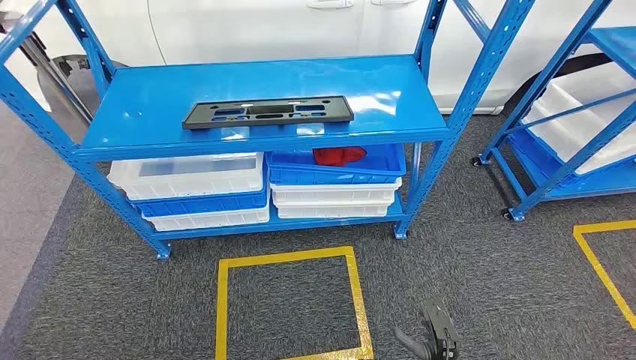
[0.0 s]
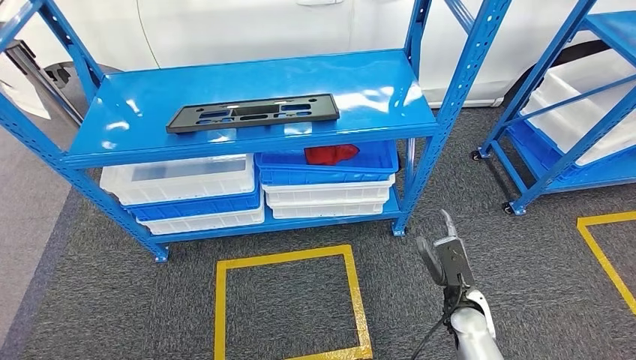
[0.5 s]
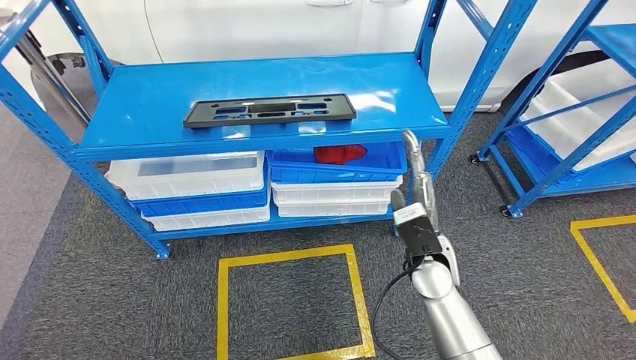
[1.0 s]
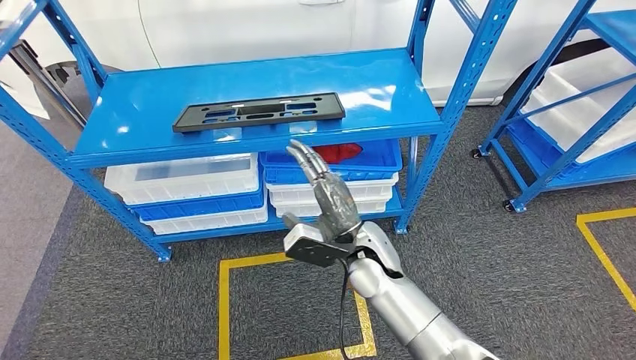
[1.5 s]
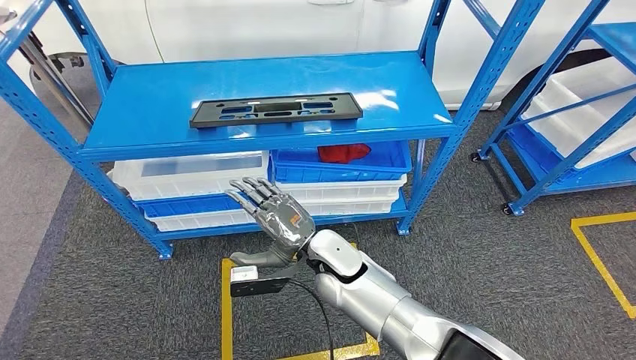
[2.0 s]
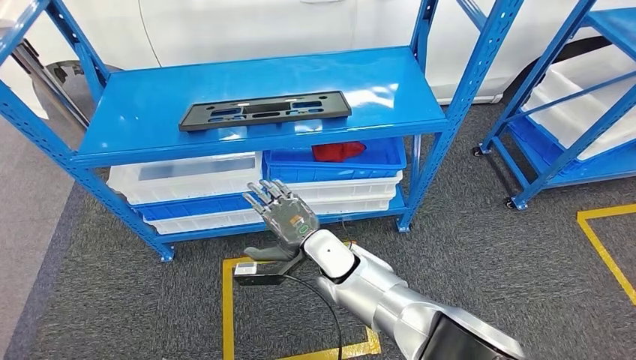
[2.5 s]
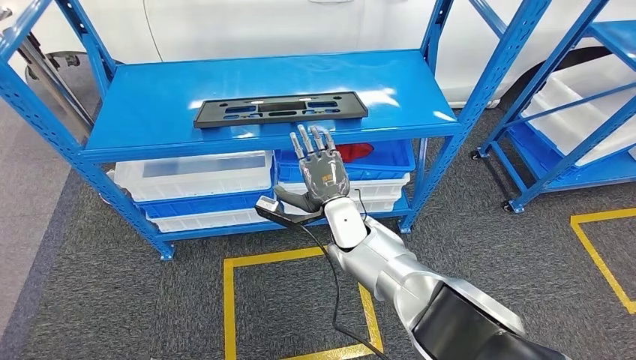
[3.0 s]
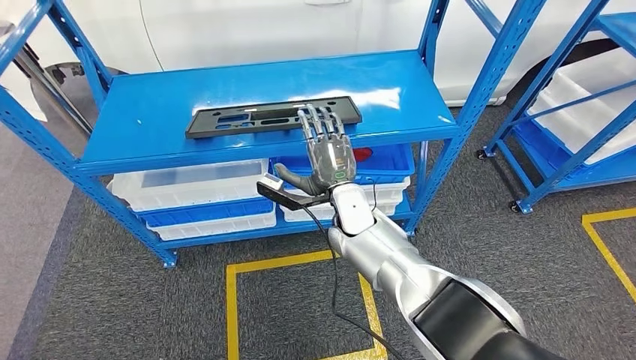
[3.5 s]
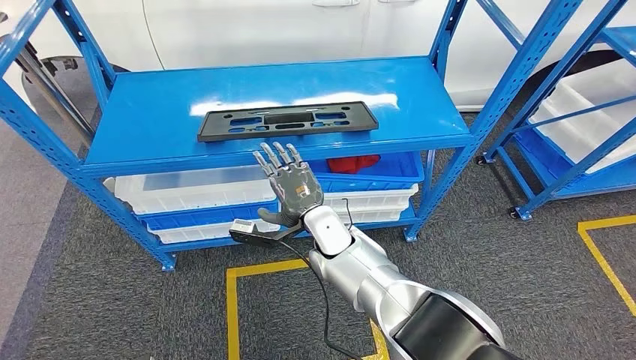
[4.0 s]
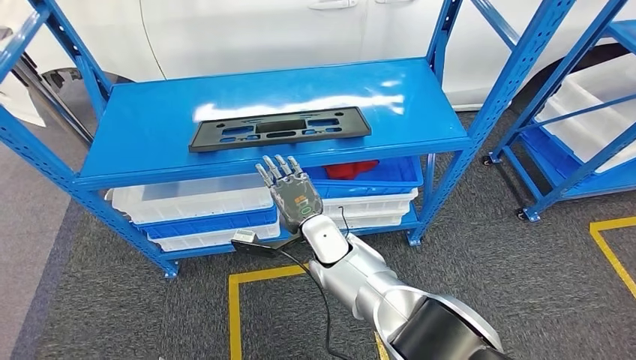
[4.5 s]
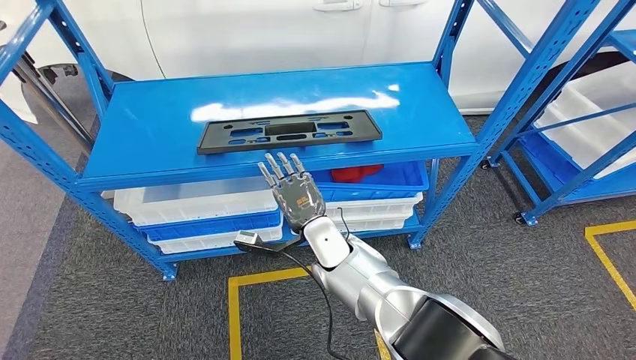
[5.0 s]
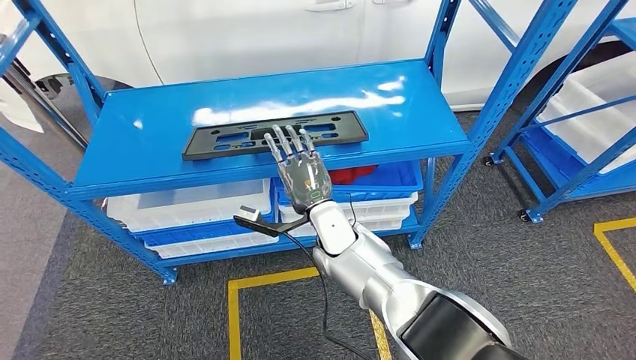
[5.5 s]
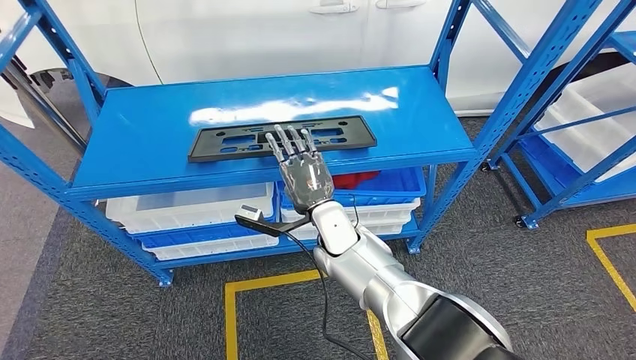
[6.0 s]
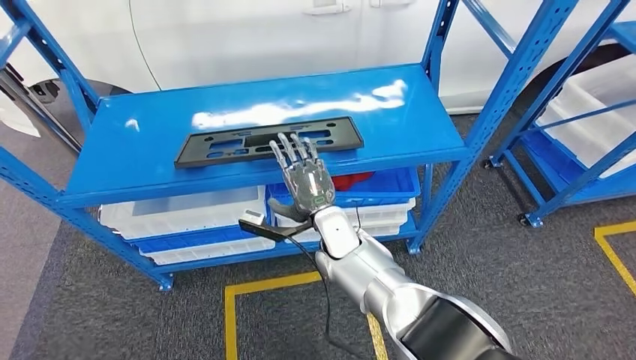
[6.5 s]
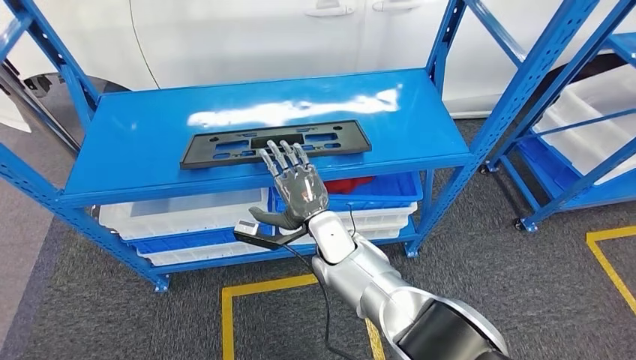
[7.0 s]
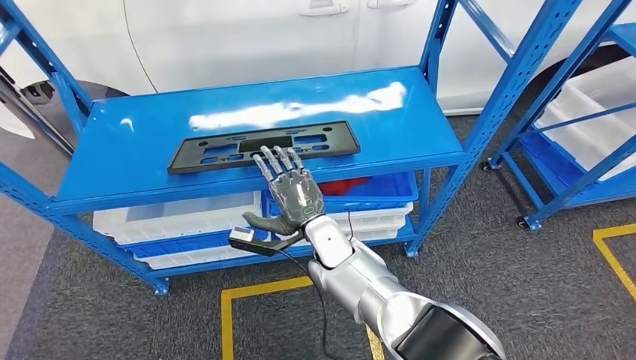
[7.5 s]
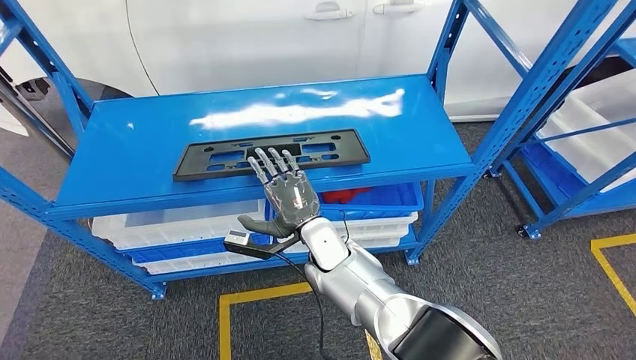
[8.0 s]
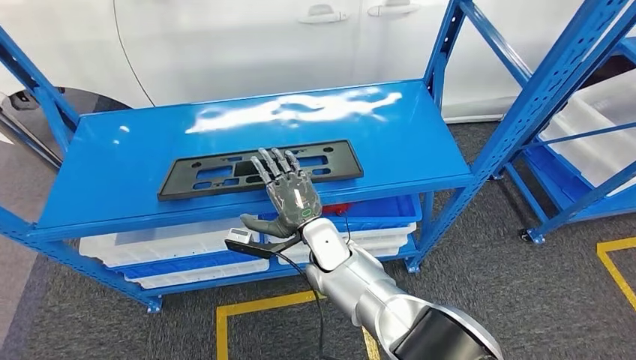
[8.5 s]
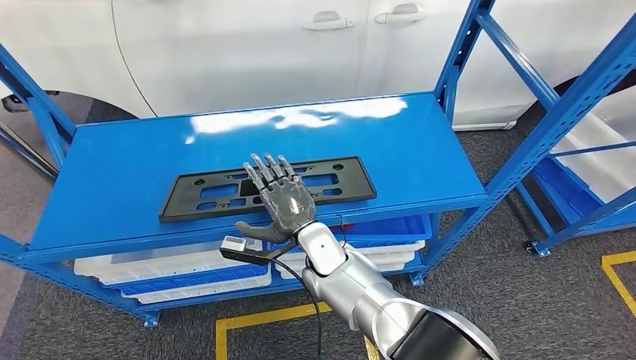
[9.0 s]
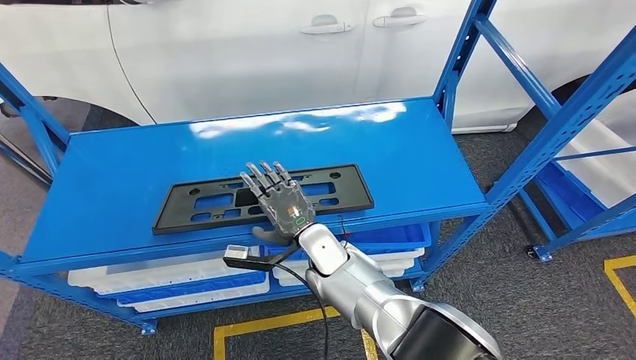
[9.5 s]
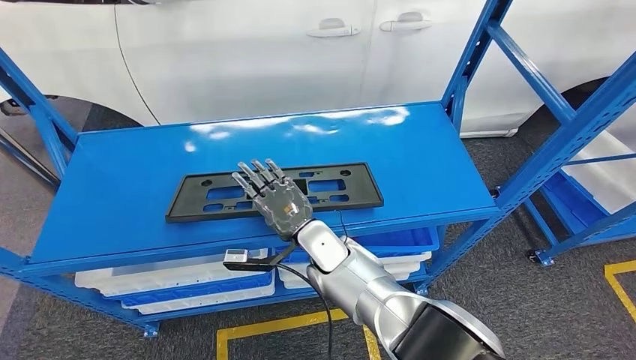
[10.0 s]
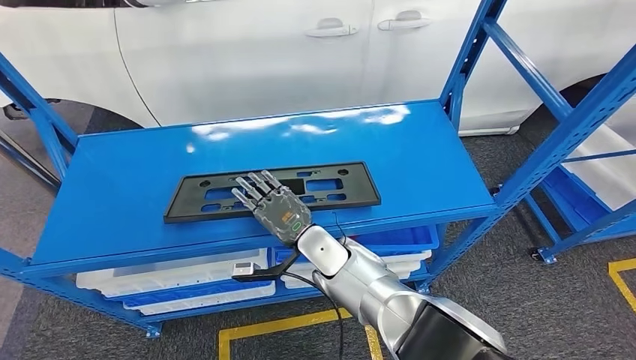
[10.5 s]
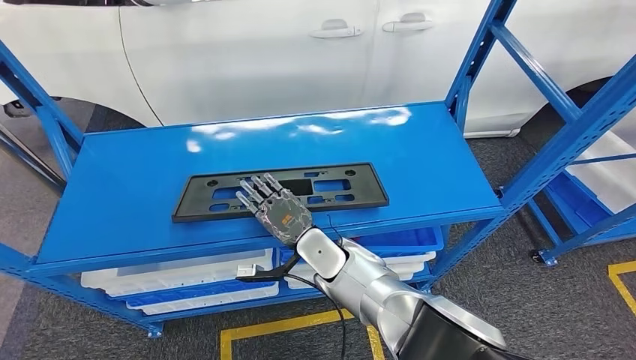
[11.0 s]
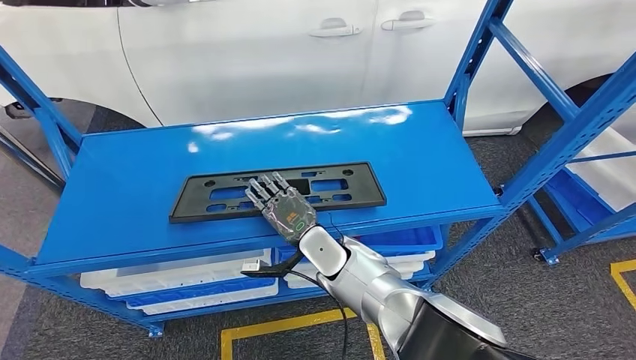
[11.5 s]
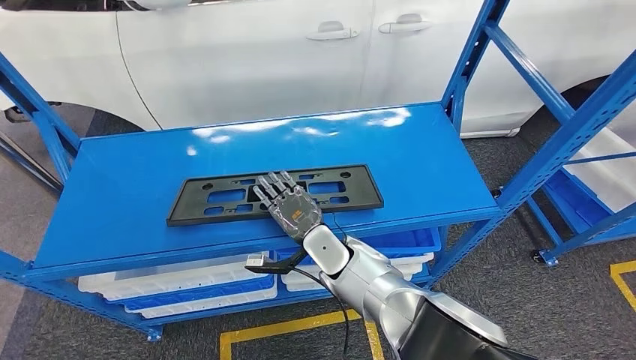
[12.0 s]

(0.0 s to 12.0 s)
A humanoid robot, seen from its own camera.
10.0 s - 12.0 s: The hands stay close to where they were, moving slightly.

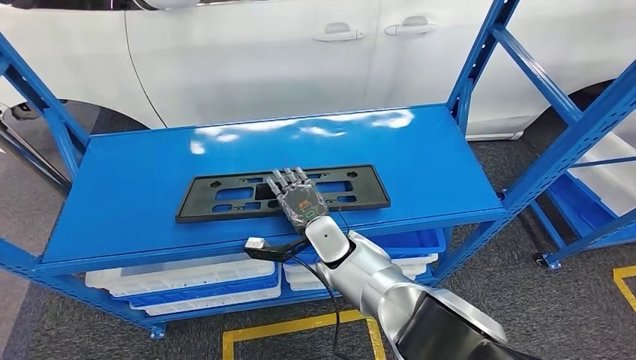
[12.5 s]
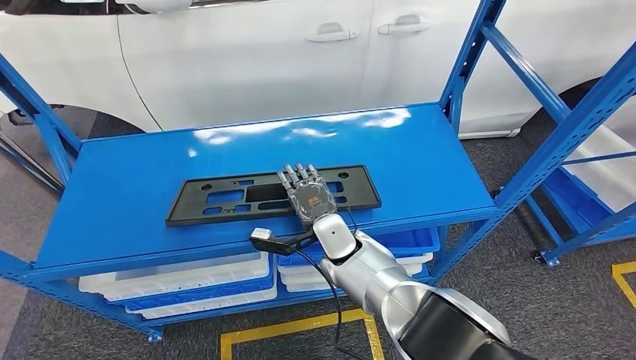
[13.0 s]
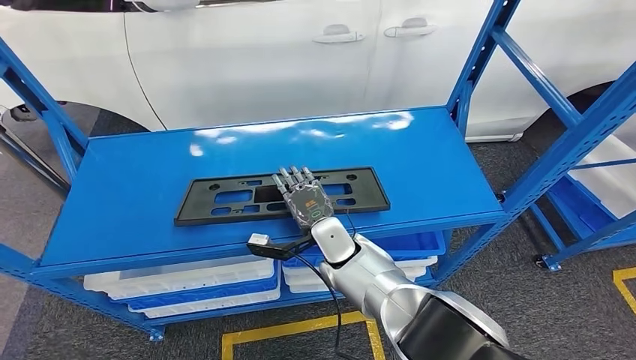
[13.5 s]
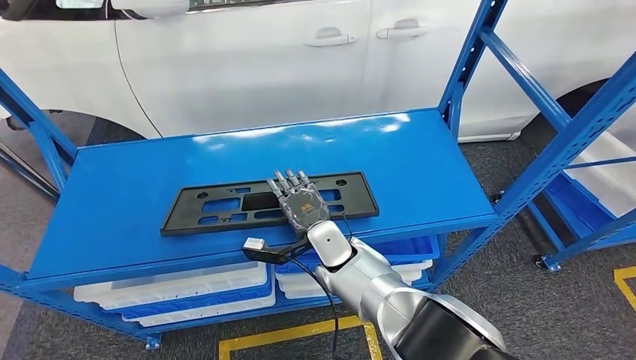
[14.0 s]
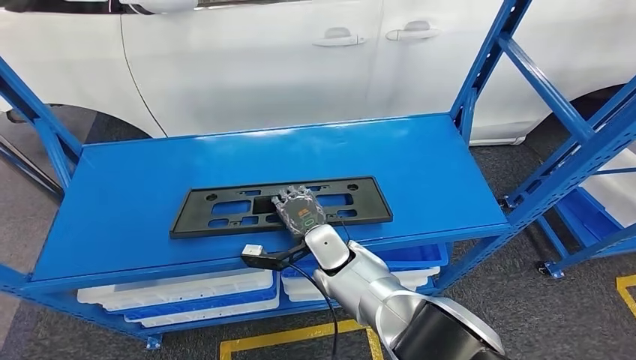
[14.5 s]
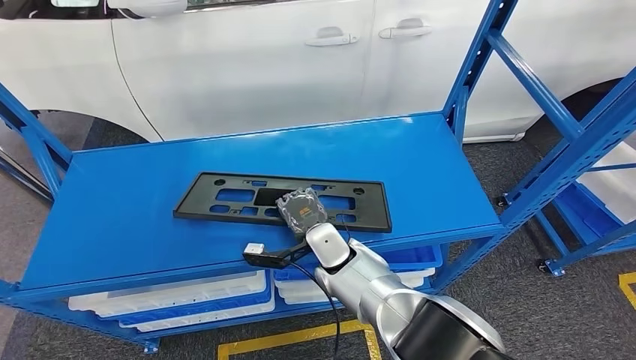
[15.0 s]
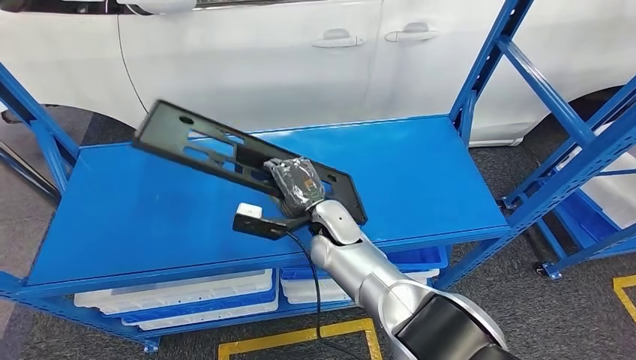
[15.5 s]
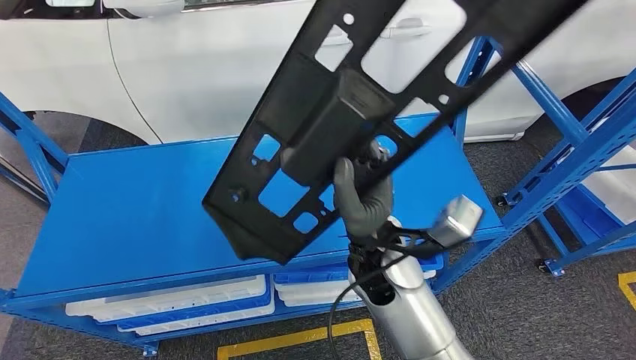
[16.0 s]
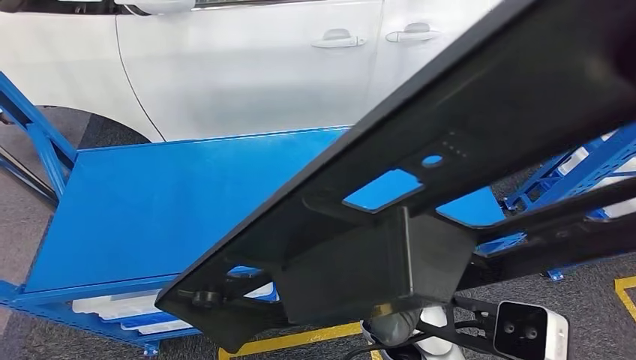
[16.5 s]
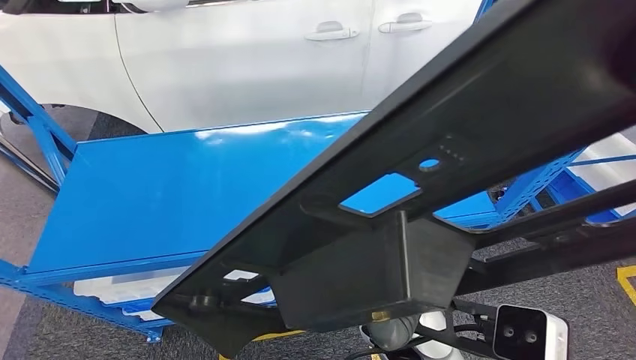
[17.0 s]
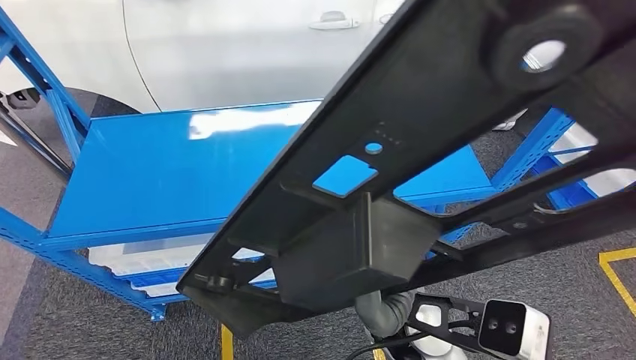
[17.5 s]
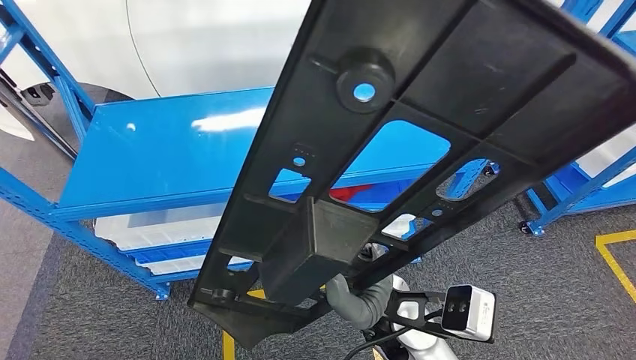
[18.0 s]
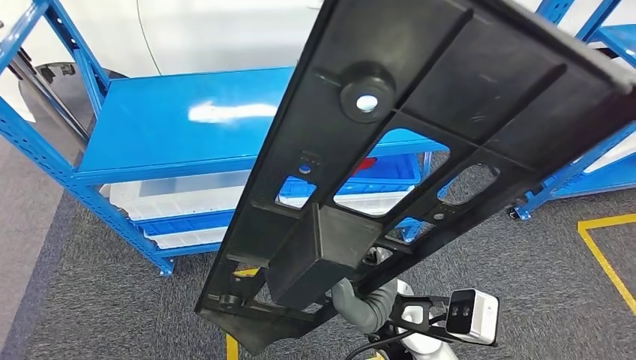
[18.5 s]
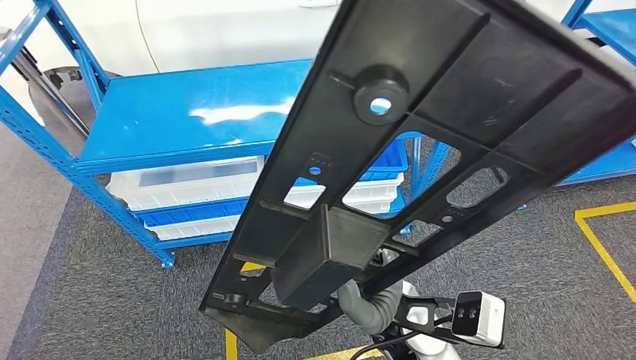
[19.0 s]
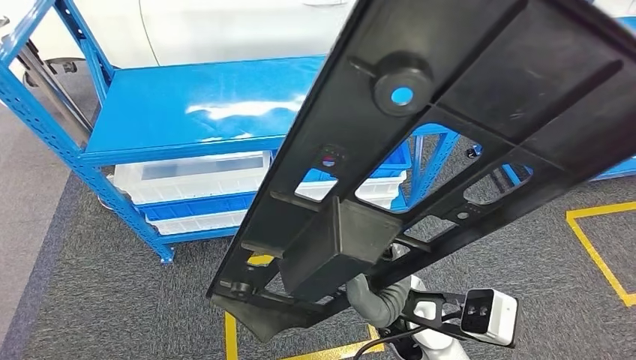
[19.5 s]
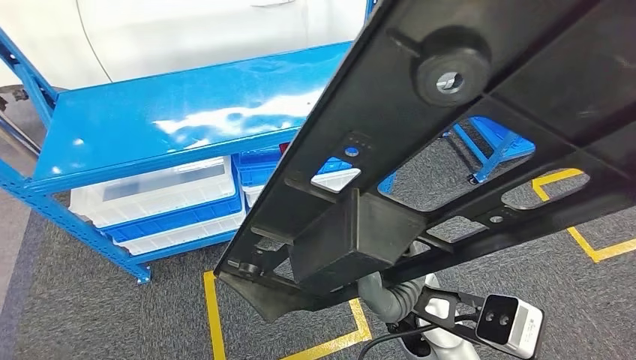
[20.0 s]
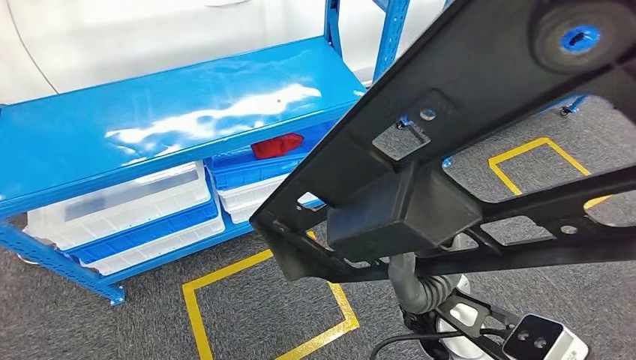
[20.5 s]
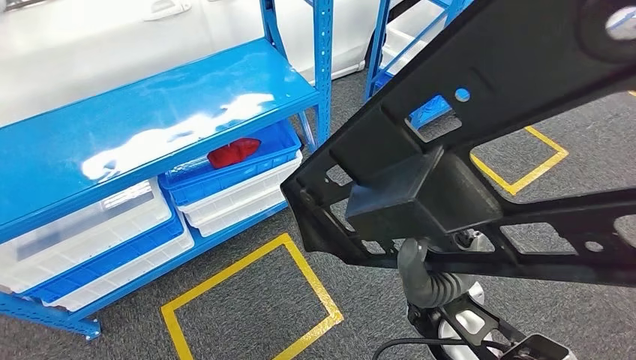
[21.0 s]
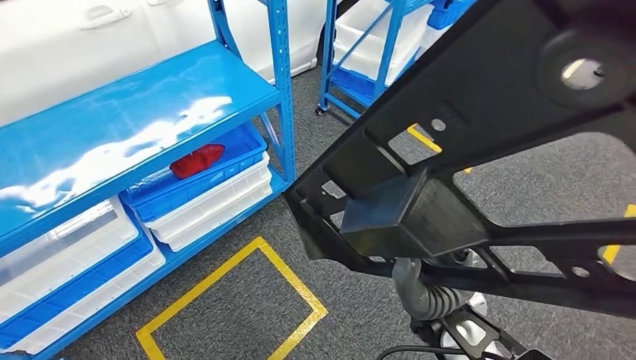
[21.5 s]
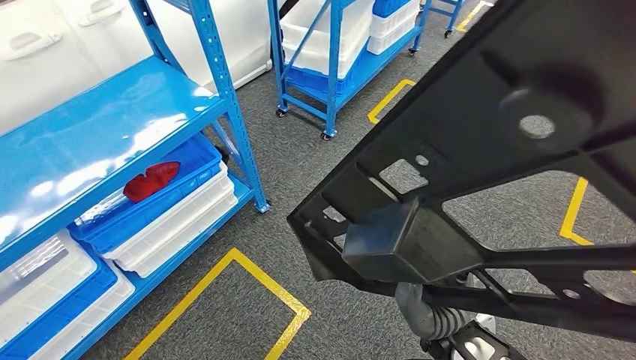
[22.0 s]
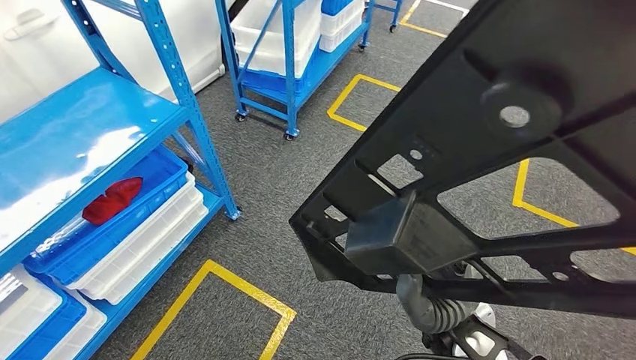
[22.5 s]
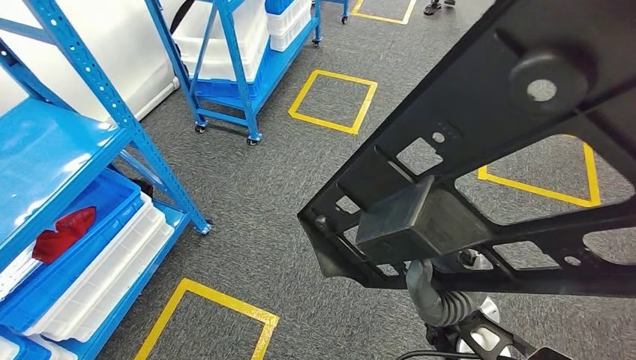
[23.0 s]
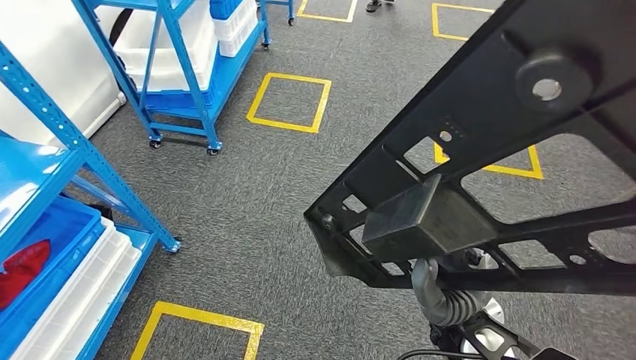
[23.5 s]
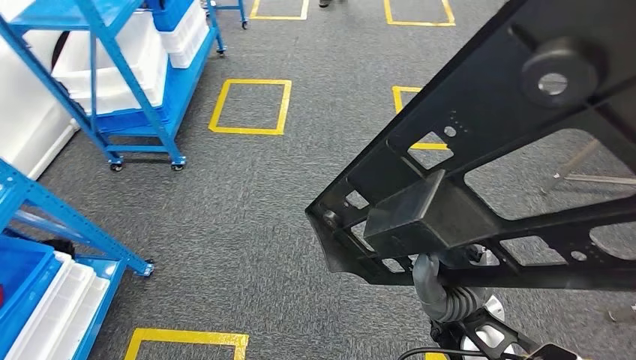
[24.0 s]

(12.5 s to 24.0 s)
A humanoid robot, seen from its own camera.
Step, 12.5 s - 16.0 s: Pick up the large material from the shelf.
